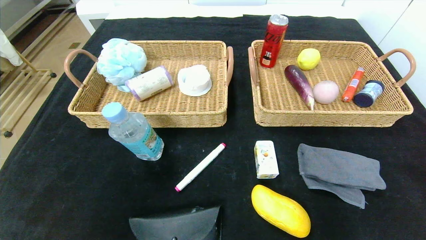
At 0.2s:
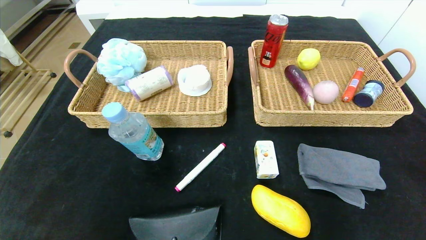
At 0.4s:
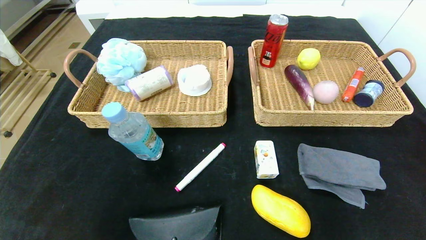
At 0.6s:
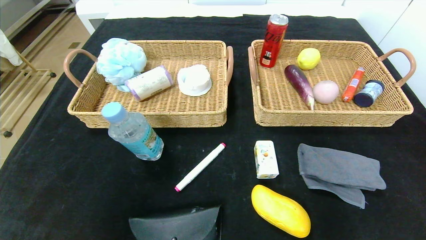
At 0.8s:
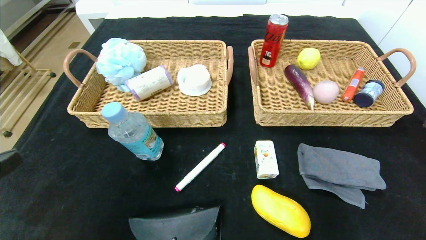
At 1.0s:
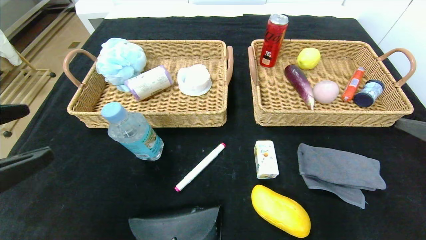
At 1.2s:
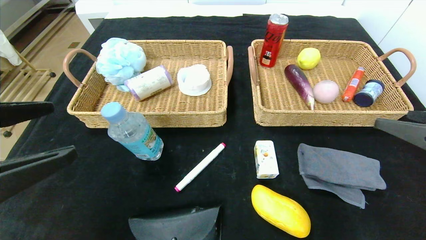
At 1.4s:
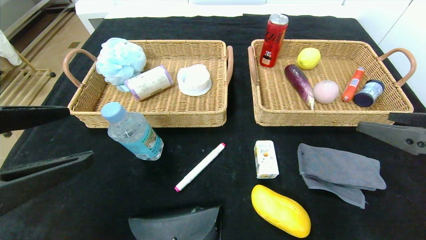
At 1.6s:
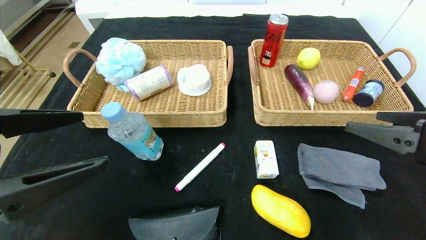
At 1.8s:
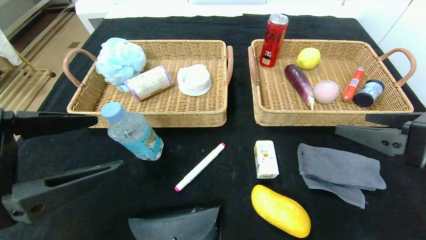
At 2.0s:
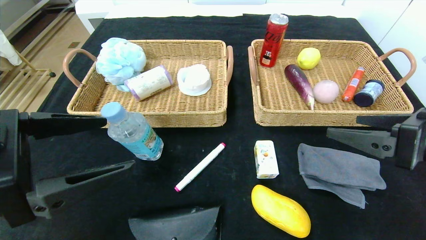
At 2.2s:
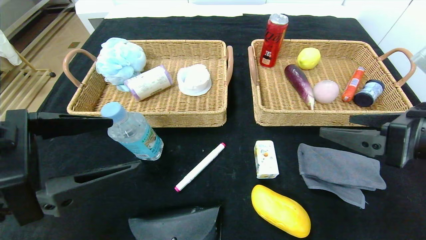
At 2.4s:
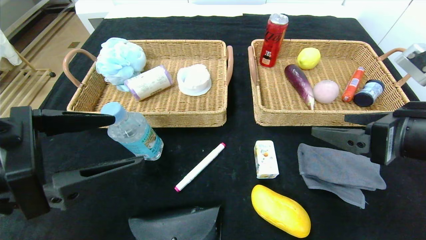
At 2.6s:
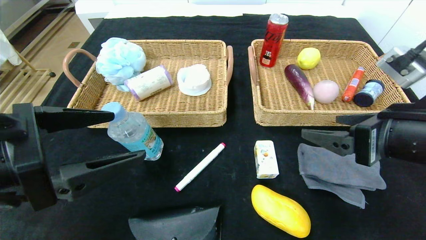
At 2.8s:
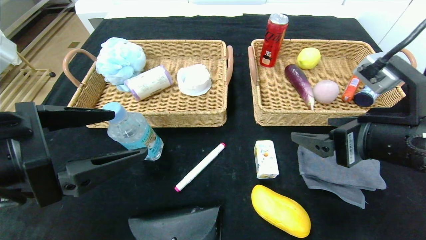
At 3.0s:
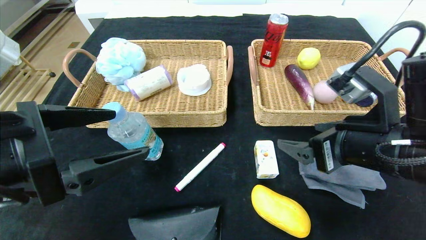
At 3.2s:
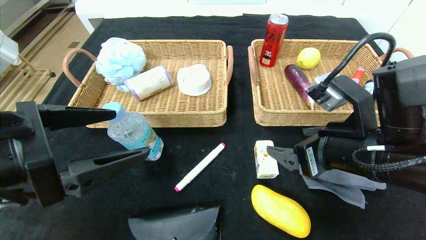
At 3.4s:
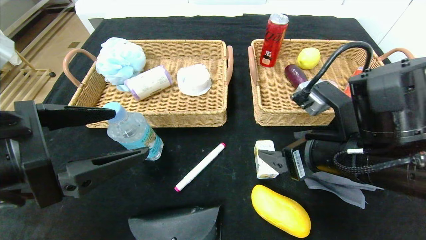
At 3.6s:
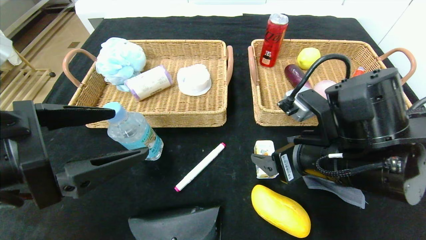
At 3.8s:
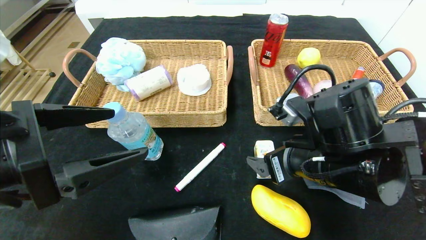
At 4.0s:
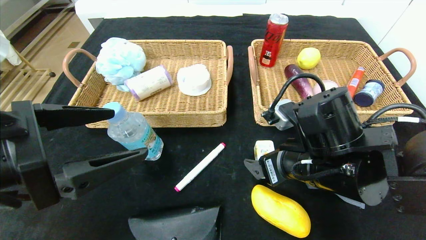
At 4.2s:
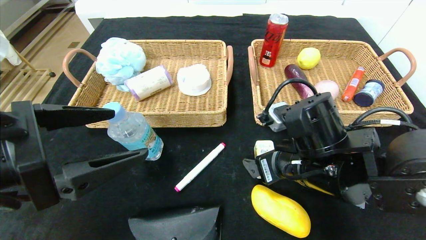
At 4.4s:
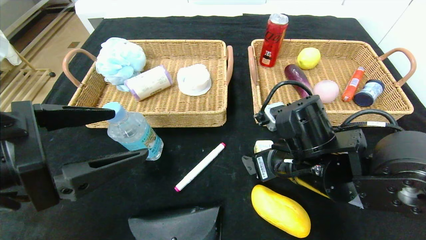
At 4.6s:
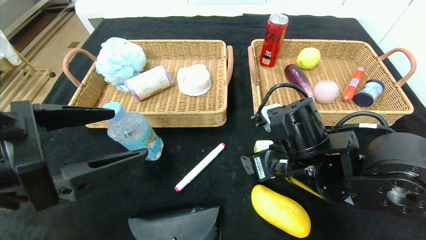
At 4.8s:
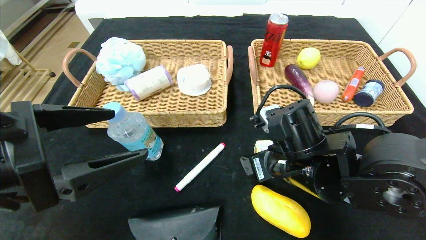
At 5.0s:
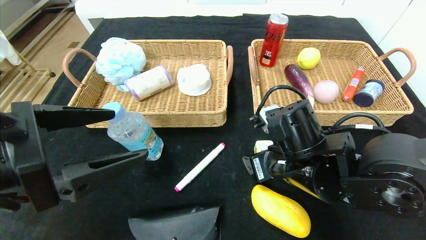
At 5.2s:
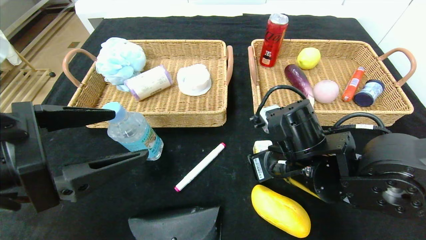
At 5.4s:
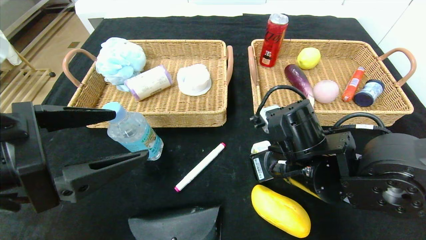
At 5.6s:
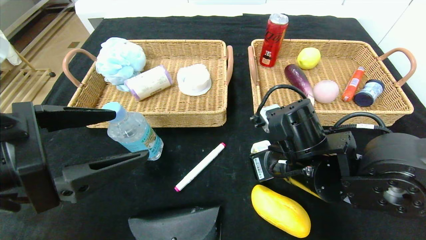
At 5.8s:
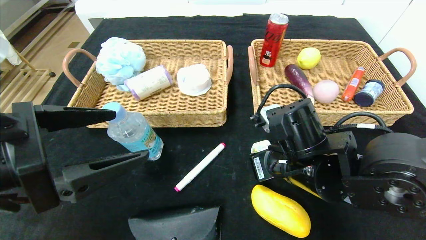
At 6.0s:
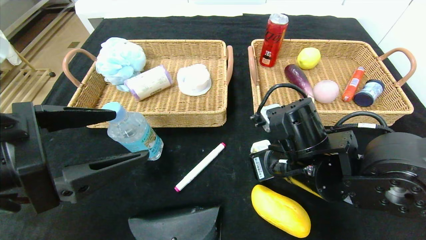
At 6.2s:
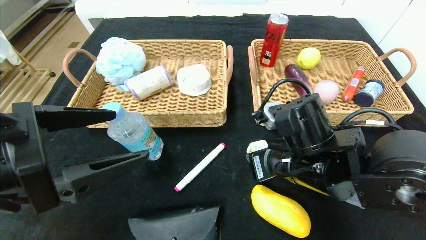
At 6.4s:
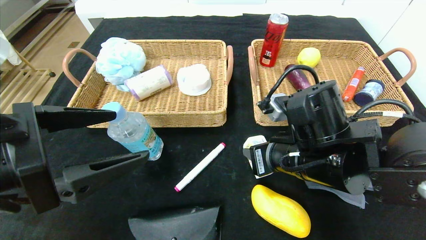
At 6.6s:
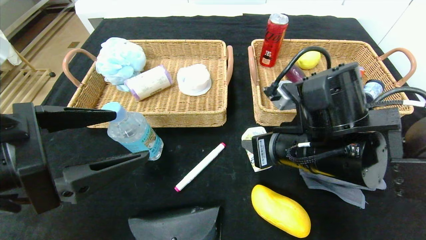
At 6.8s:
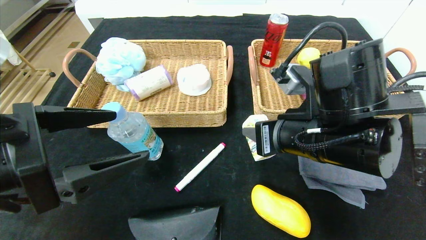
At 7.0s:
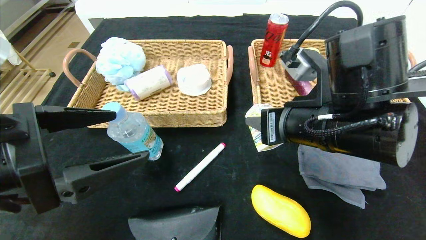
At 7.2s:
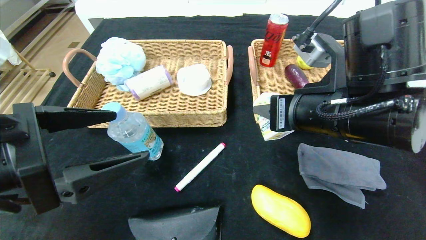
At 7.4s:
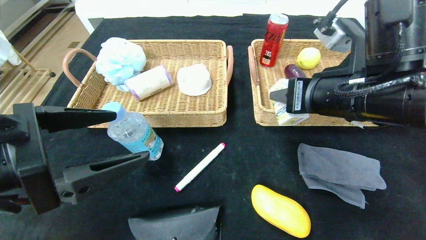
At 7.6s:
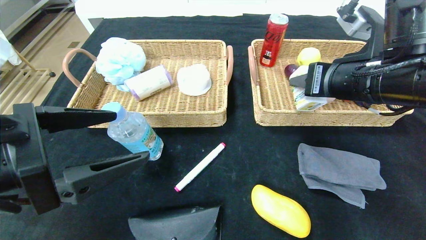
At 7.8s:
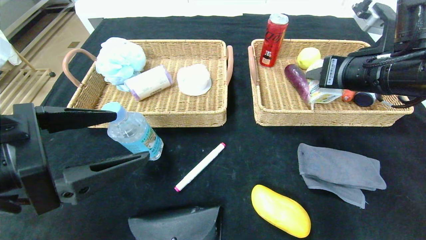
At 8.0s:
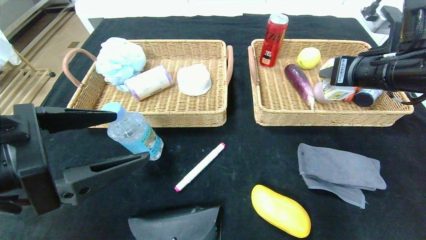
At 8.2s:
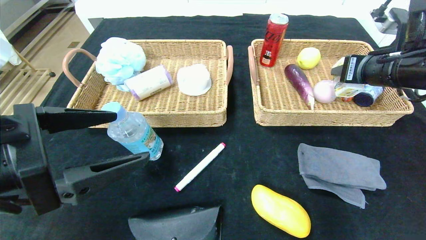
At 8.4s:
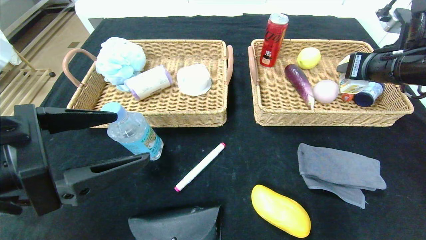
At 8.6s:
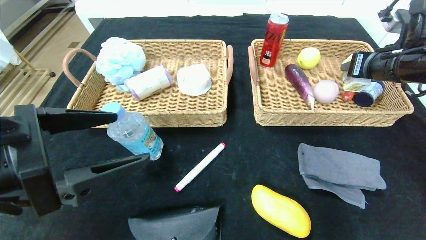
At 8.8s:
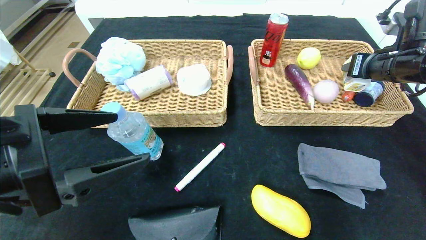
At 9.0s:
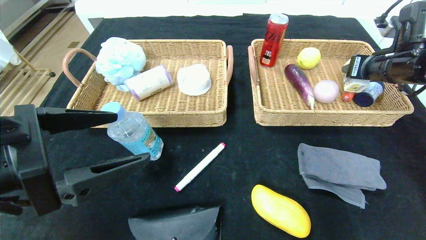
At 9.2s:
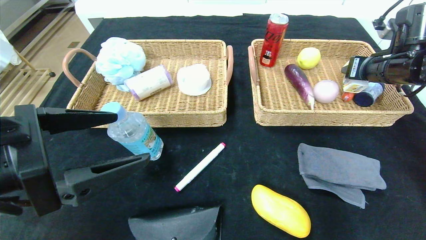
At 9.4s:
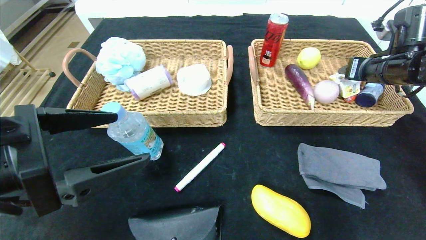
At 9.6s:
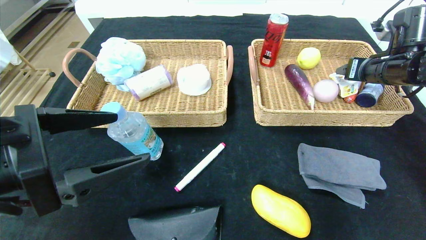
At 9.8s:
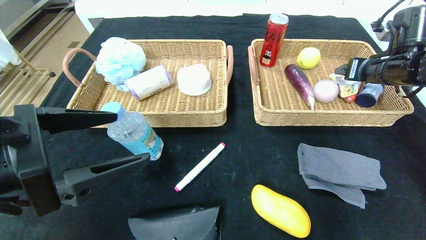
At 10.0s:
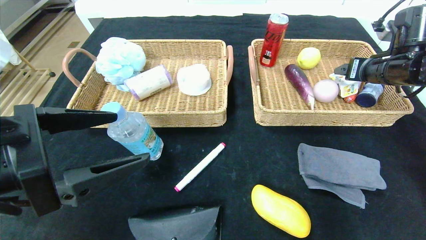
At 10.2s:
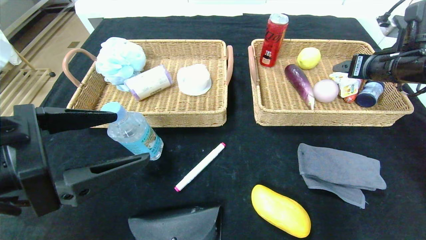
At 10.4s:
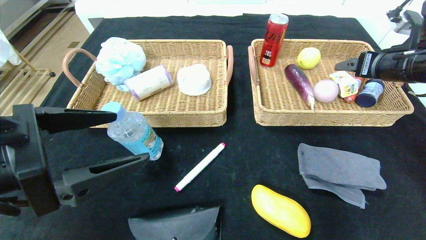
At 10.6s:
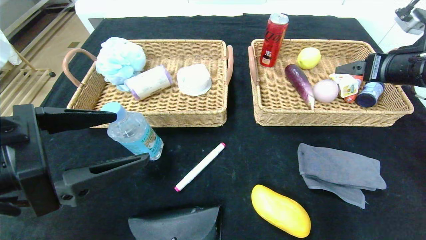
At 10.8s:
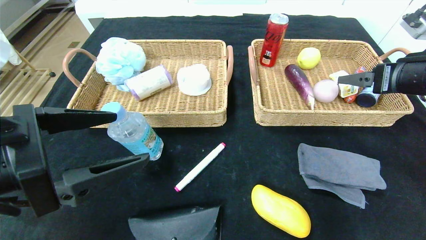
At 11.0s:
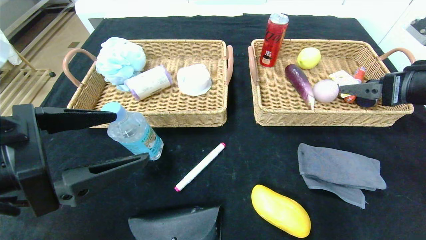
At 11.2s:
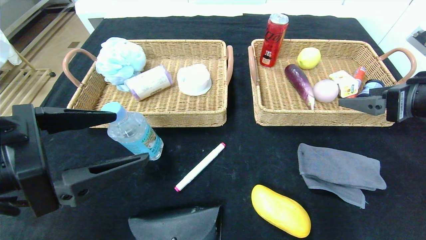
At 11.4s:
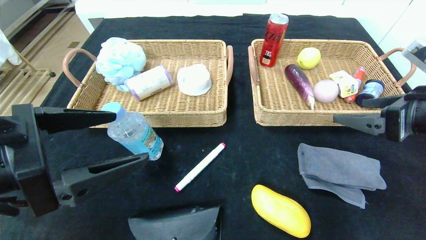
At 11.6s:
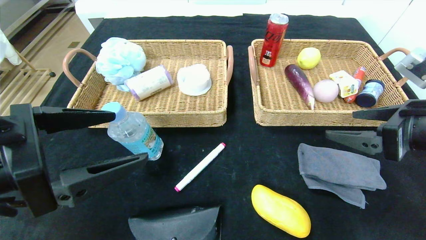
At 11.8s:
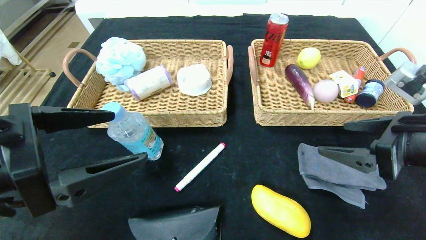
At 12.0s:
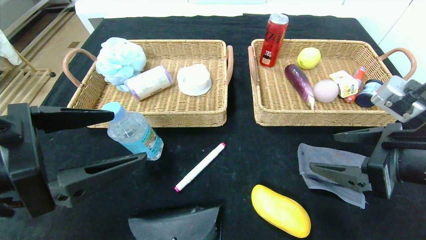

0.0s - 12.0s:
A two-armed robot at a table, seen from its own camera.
Step, 0.0s - 9.8s: Grasp the square chewing gum and put it in the right basket.
0.0s - 1.6s: The left gripper is displaced forward and upward by roughly 15 cm; the right gripper is displaced forward and to the left by approximately 20 cm.
1.6s - 3.0s: The right gripper heads to the left, covering about 10 cm.
3.0s - 4.4s: The right gripper is displaced to the left and downward by roughly 10 cm.
4.4s - 6.0s: The right gripper closes up.
6.0s - 7.6s: The right gripper shifts roughly 15 cm upward and to the right.
7.6s - 9.0s: The right gripper moves to the right and forward, roughly 15 cm.
9.0s - 10.4s: The right gripper opens up.
10.4s - 12.0s: The right gripper shifts some 20 cm backward, to the left and downward.

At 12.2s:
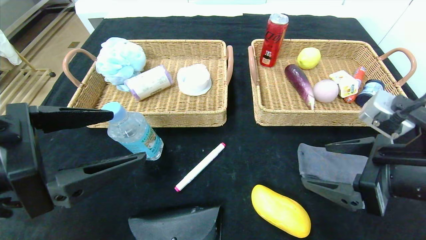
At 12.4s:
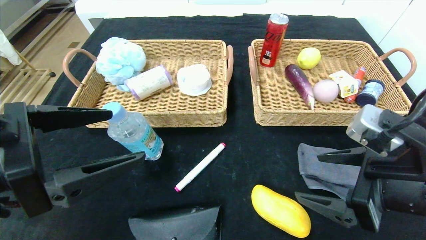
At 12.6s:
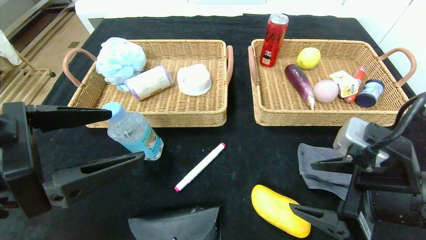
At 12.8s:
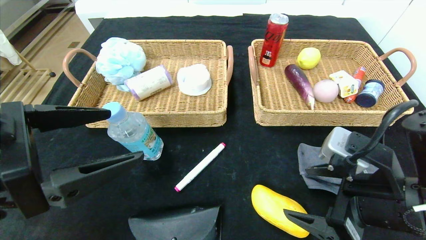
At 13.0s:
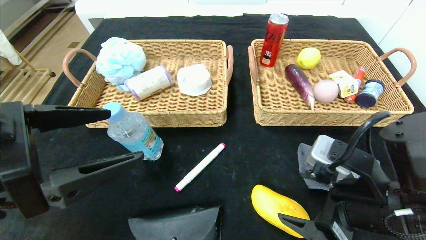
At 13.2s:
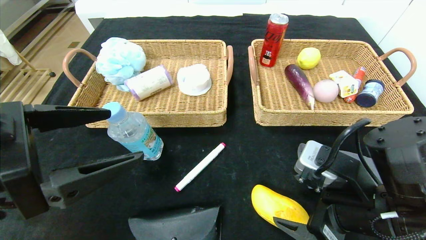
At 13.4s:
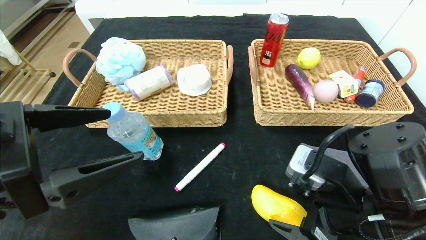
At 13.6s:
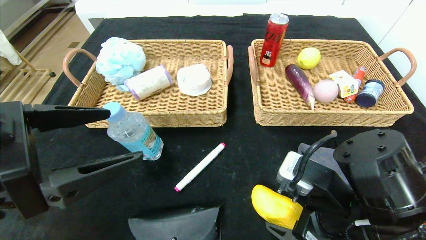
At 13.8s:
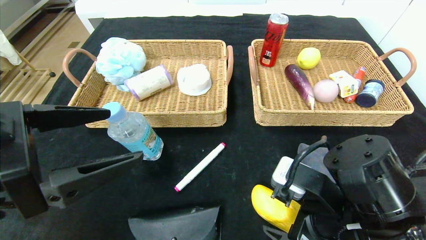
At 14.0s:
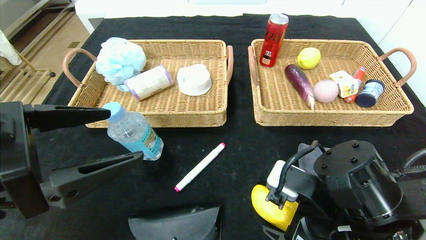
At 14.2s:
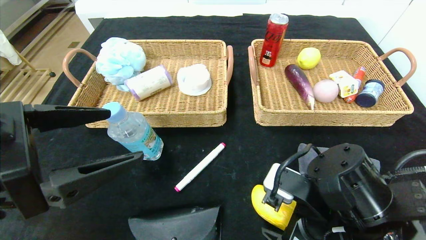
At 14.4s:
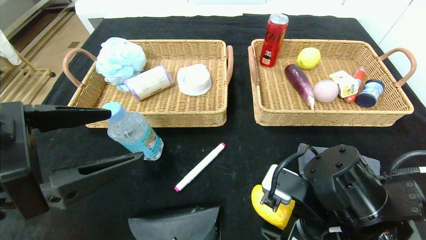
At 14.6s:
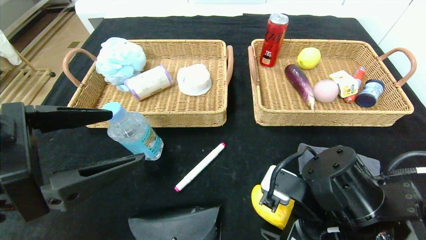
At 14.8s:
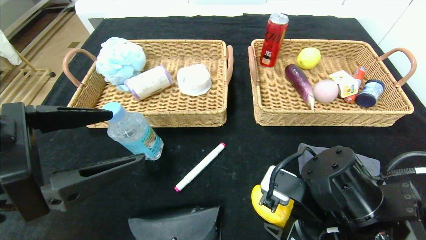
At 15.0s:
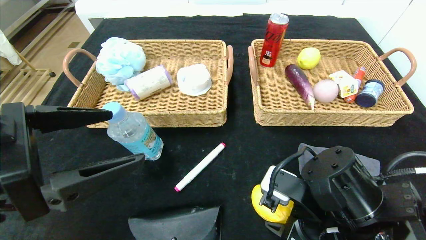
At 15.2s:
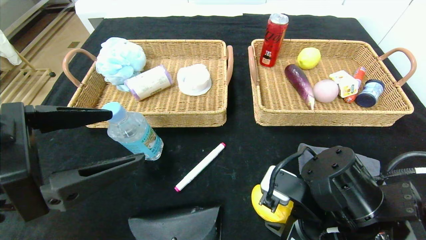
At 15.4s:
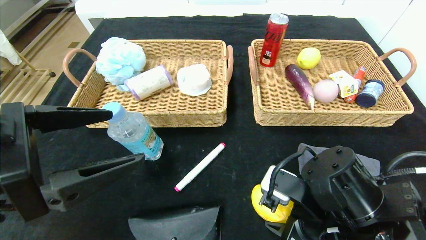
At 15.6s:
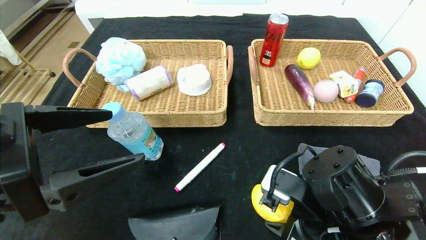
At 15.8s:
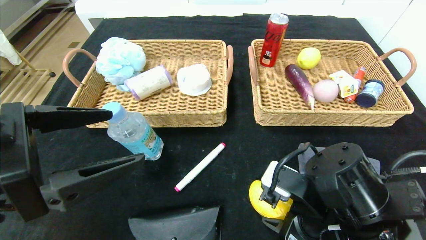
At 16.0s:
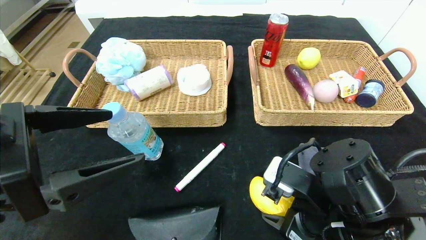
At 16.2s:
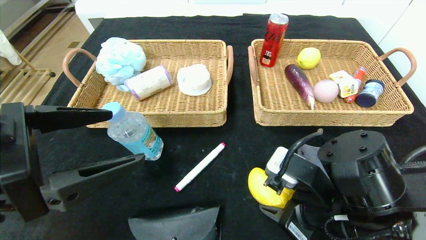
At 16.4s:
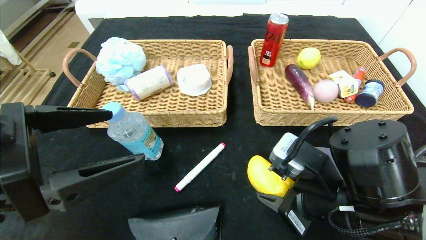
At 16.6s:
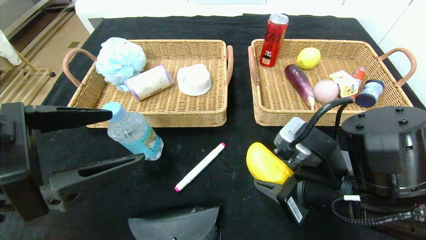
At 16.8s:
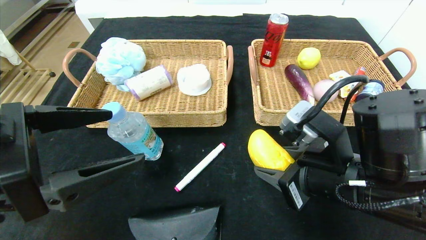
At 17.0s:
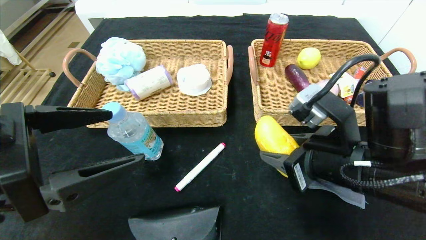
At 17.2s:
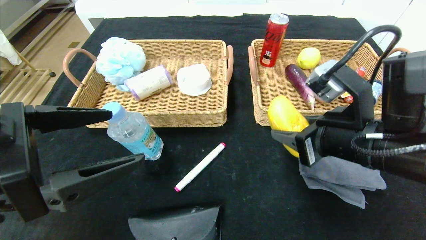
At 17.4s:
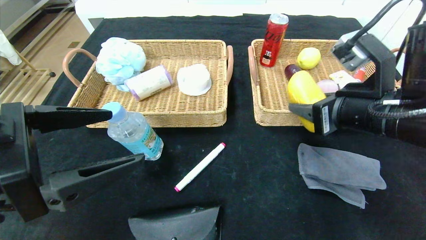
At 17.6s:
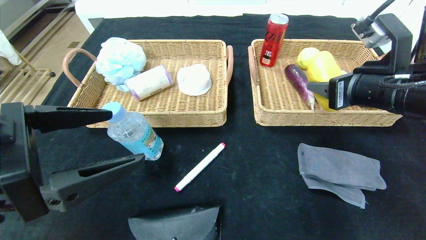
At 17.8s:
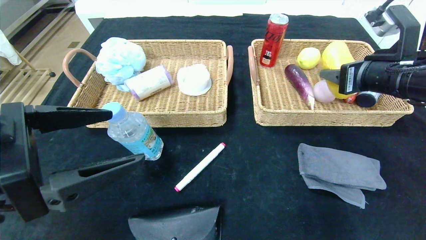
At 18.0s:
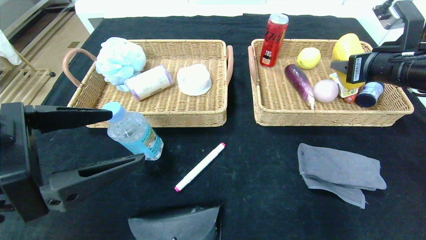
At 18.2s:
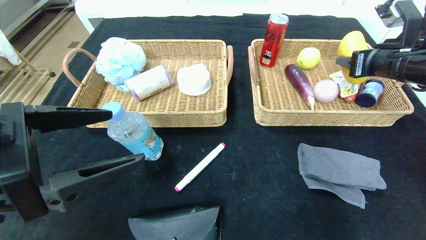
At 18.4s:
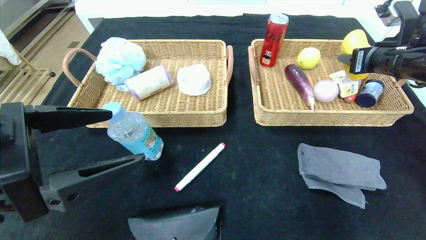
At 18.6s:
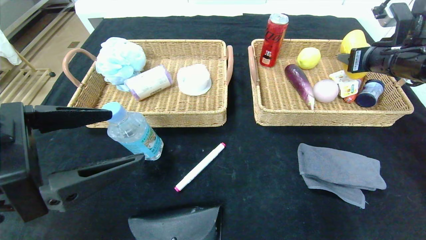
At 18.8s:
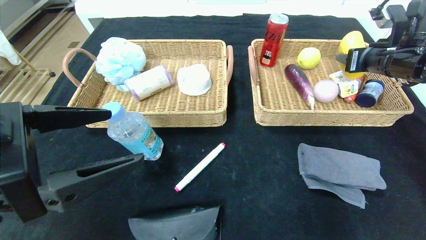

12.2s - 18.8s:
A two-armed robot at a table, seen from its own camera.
12.2s - 13.8s: The right gripper is displaced to the left and downward by about 10 cm.
13.8s - 15.4s: The right gripper closes.
15.4s - 17.2s: The right gripper goes about 10 cm upward.
17.2s - 18.8s: The right gripper heads forward, to the right and upward, covering some 20 cm.
